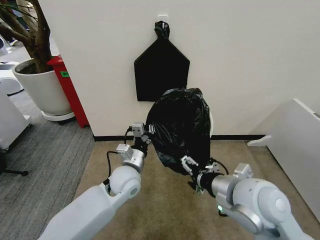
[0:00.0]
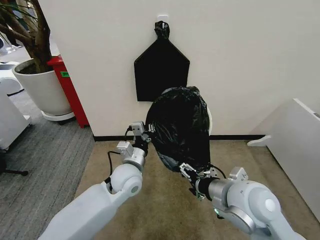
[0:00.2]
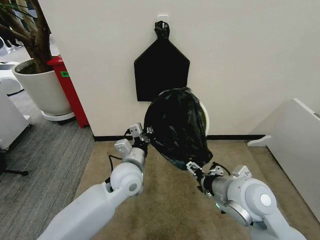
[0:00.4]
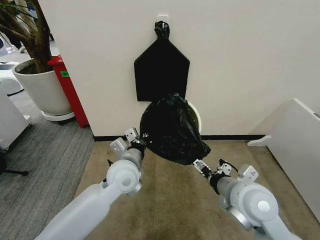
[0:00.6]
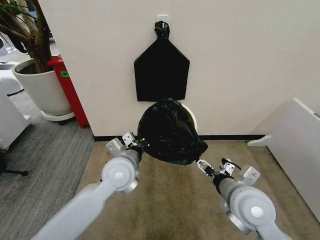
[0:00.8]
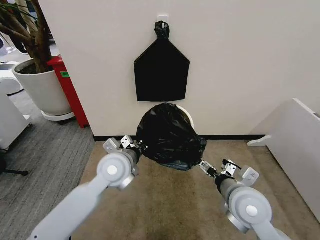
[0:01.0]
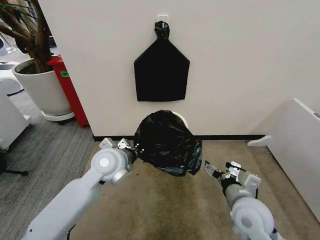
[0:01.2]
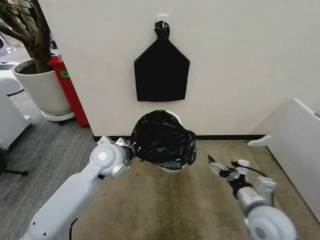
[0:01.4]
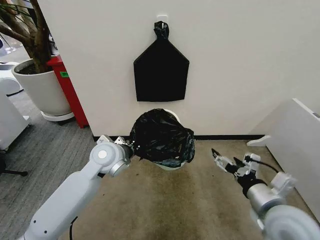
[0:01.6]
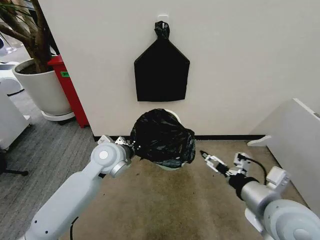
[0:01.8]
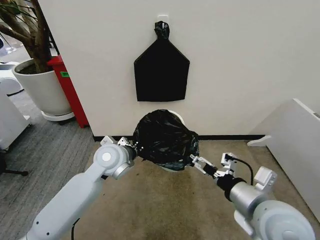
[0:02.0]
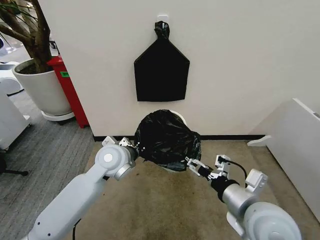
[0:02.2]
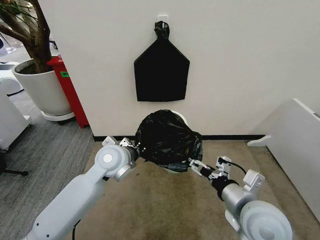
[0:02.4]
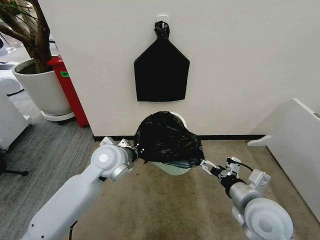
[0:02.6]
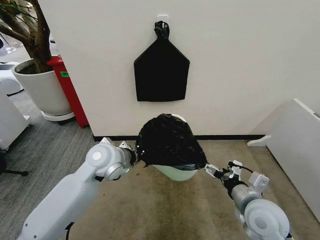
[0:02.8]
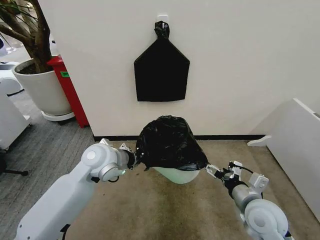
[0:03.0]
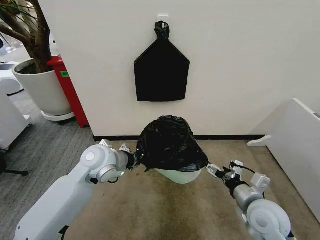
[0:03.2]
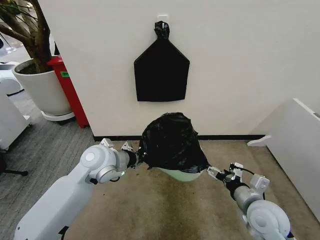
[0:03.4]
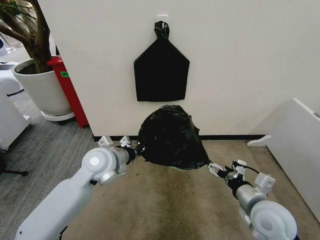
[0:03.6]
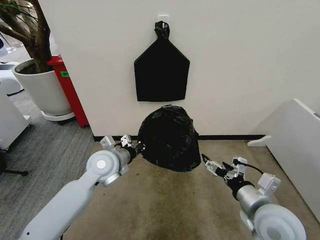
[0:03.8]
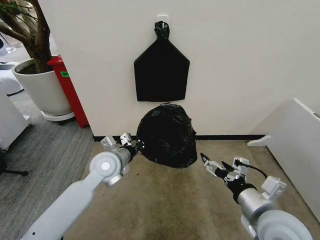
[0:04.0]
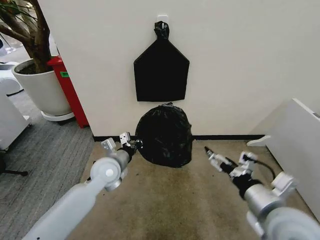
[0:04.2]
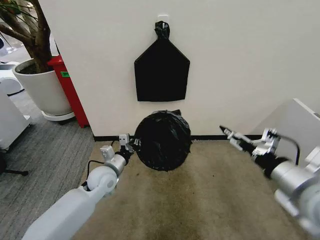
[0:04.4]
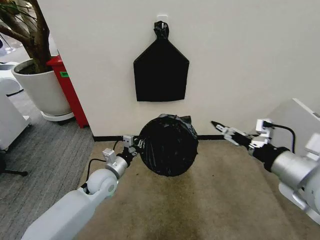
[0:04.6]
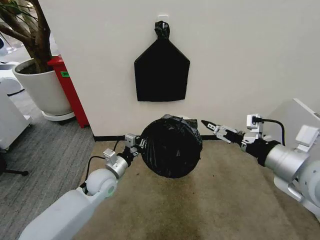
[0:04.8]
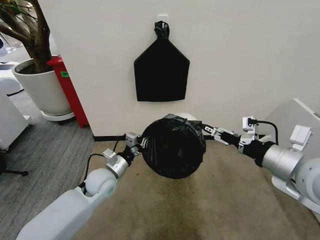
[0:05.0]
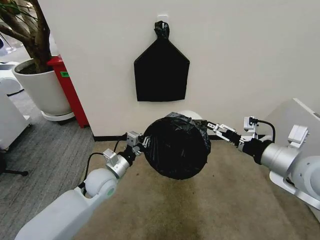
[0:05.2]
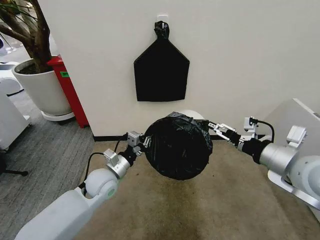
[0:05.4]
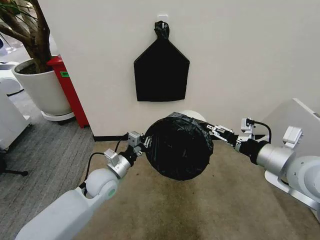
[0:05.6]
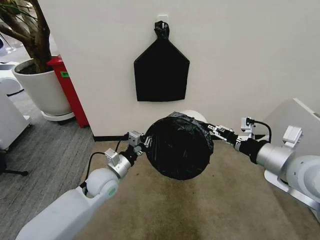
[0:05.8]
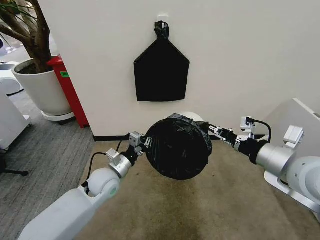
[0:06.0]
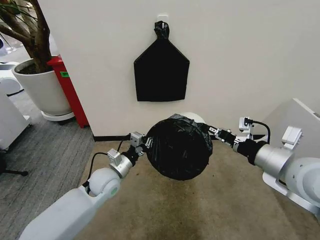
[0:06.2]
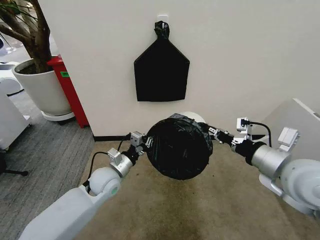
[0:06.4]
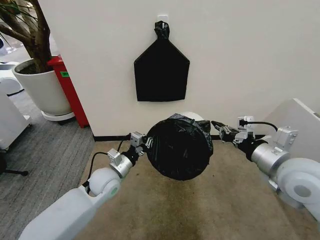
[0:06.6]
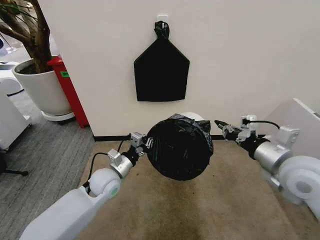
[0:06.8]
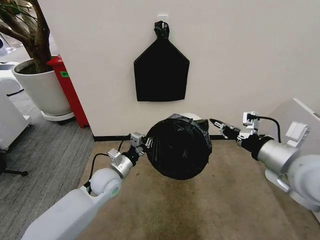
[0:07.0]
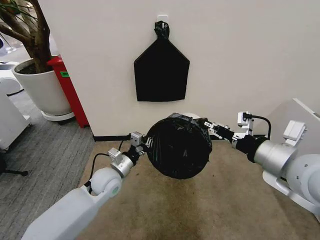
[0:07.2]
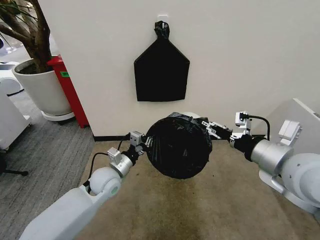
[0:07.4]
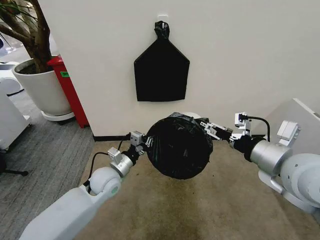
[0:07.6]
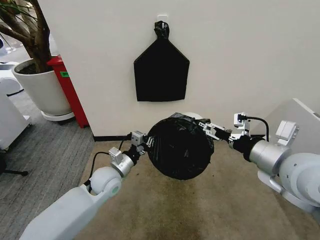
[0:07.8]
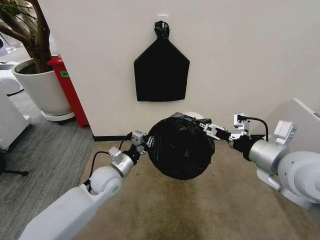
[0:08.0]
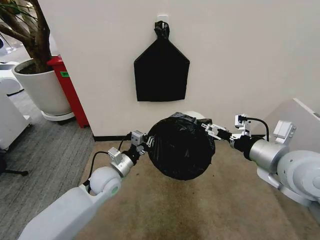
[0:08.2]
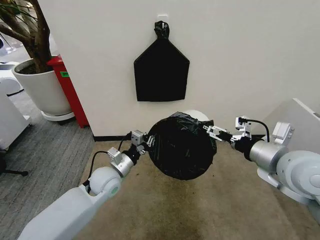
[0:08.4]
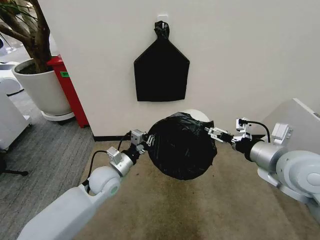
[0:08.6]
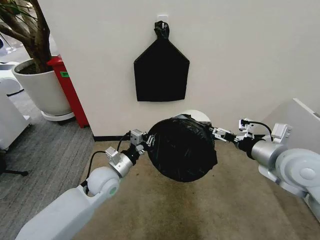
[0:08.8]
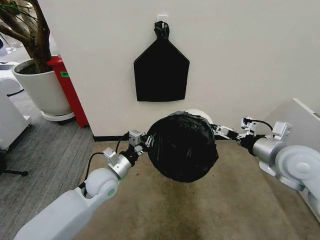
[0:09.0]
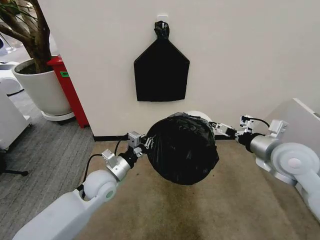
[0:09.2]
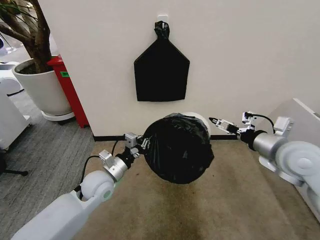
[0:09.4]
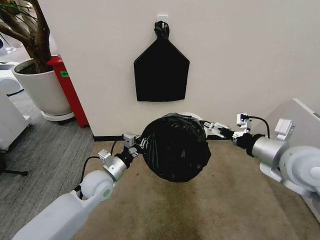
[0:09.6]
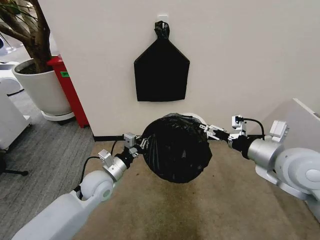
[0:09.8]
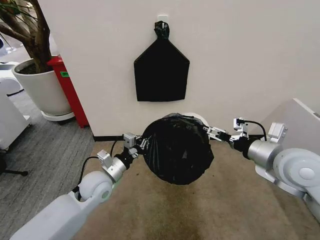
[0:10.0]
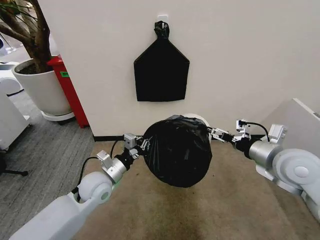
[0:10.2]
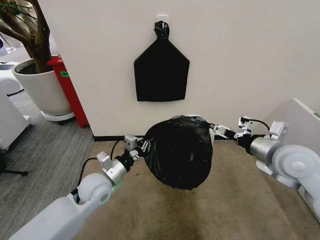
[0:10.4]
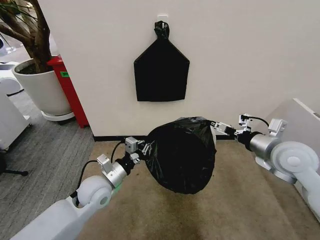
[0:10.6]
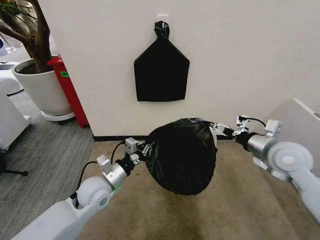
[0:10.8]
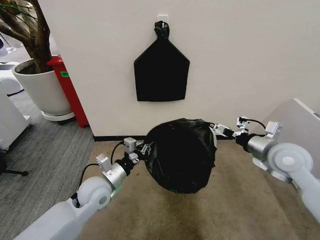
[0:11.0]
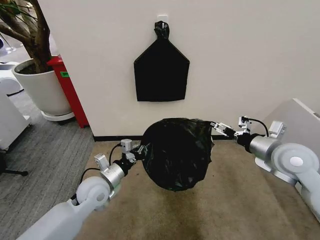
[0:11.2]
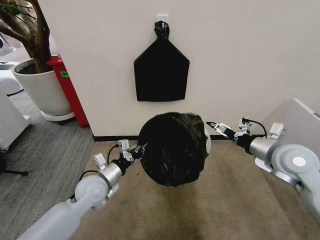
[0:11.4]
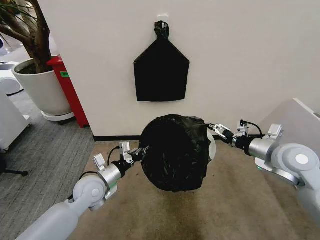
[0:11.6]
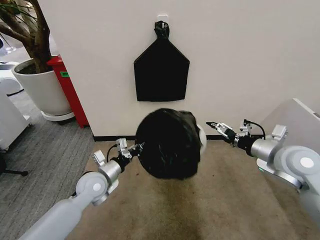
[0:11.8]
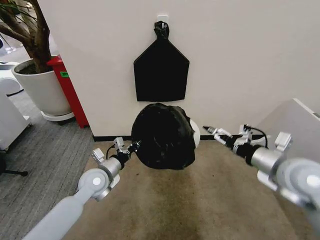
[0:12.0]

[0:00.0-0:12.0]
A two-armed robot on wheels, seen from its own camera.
Task of the whole recording: Place the garbage bag over the trash bin.
0:00.0 to 0:01.6: The right gripper is displaced to the right by some 5 cm; the left gripper moves upward and to the left, approximately 10 cm.
0:01.6 to 0:03.0: The right gripper moves downward, about 10 cm.
0:03.0 to 0:04.4: The right gripper shifts approximately 15 cm upward. Meanwhile the left gripper travels downward by about 15 cm.
0:04.4 to 0:06.0: The right gripper travels forward by about 5 cm, and closes its fingers.
0:06.0 to 0:07.6: The right gripper opens up.
0:07.6 to 0:09.0: The right gripper travels forward, to the right and downward by some 10 cm, and opens.
0:09.0 to 0:10.4: There are only small adjustments of the grippers.

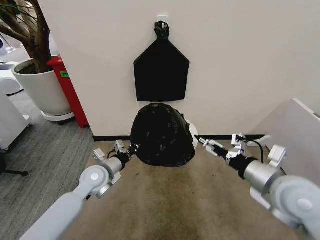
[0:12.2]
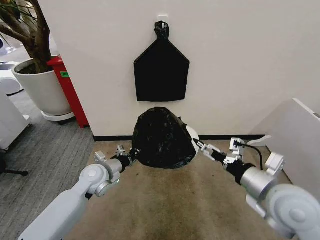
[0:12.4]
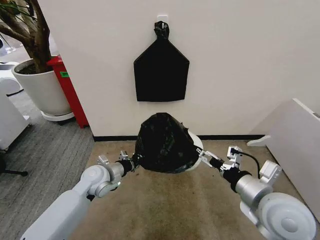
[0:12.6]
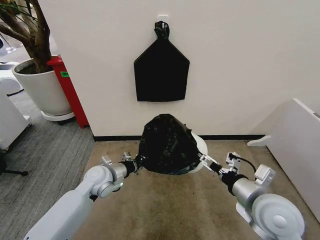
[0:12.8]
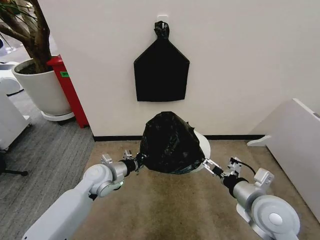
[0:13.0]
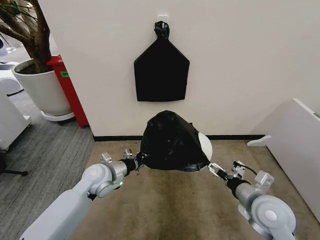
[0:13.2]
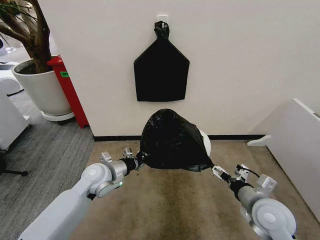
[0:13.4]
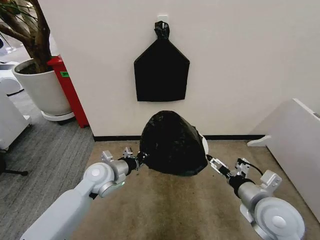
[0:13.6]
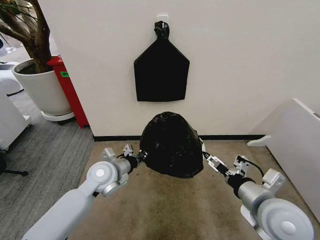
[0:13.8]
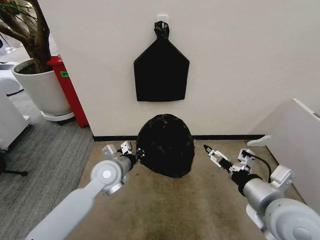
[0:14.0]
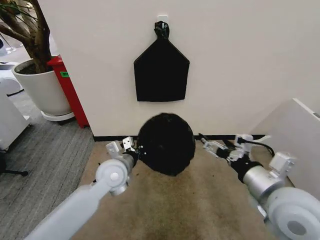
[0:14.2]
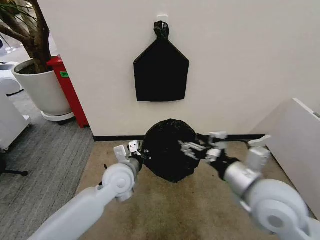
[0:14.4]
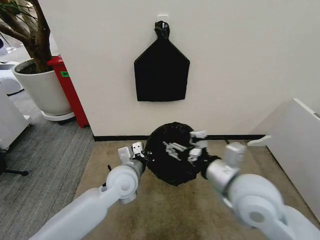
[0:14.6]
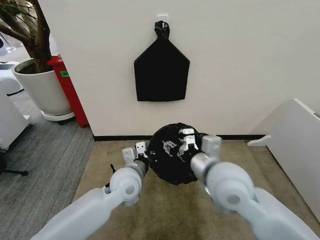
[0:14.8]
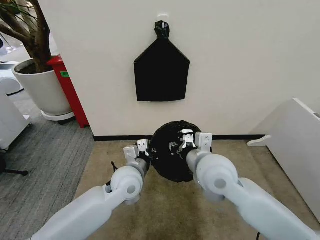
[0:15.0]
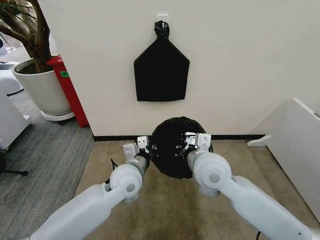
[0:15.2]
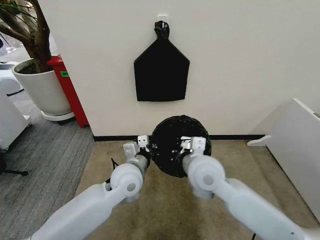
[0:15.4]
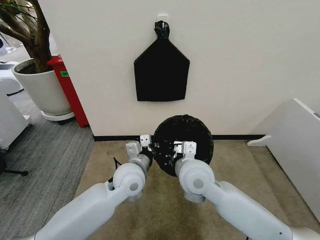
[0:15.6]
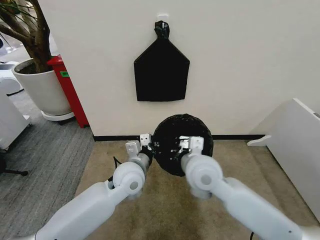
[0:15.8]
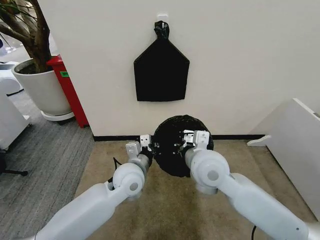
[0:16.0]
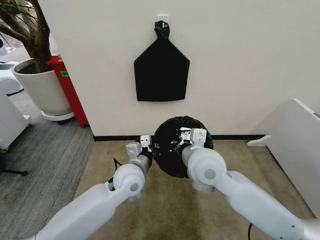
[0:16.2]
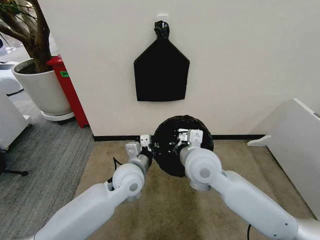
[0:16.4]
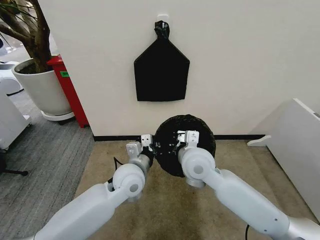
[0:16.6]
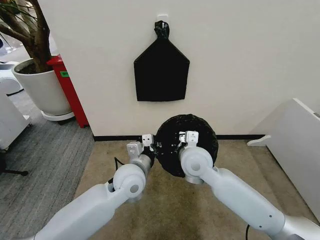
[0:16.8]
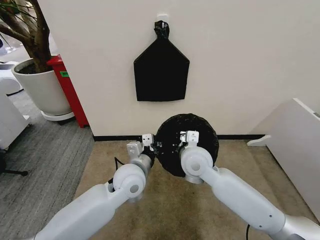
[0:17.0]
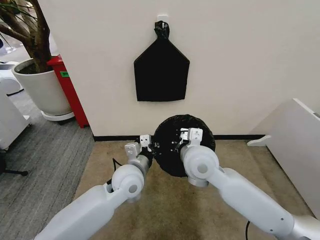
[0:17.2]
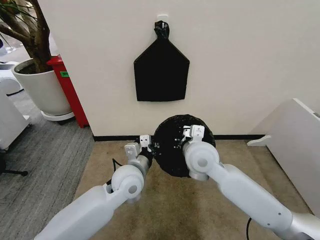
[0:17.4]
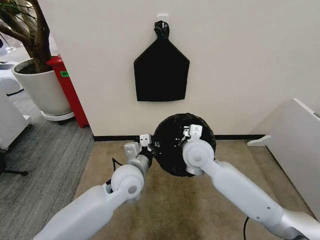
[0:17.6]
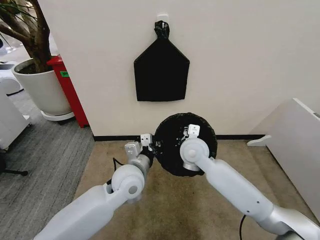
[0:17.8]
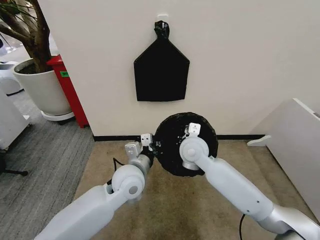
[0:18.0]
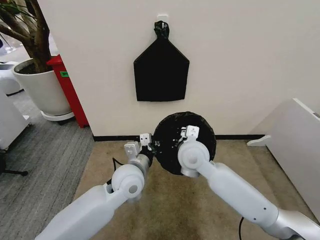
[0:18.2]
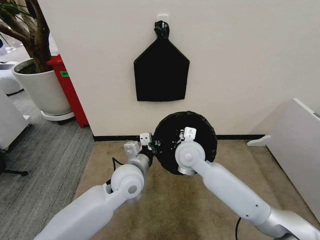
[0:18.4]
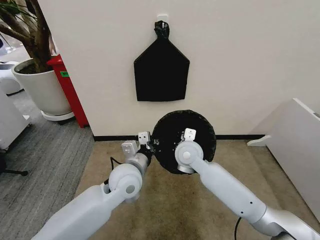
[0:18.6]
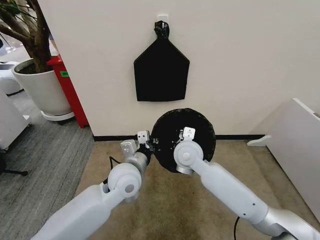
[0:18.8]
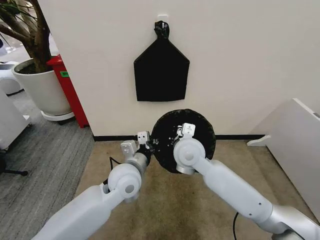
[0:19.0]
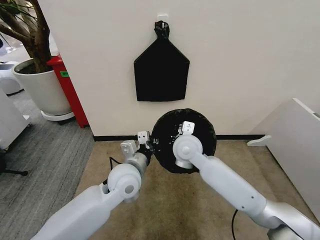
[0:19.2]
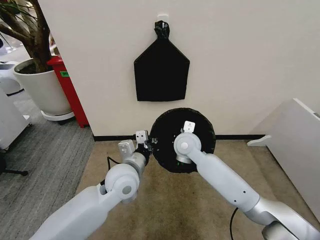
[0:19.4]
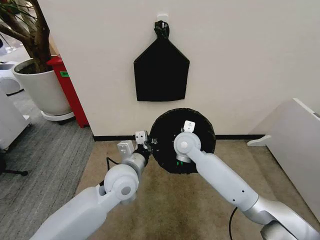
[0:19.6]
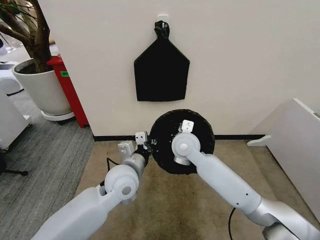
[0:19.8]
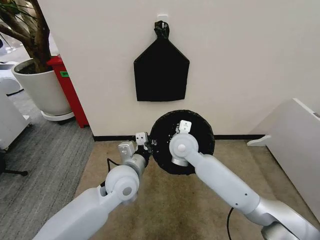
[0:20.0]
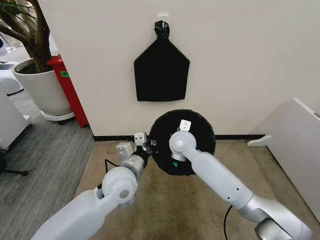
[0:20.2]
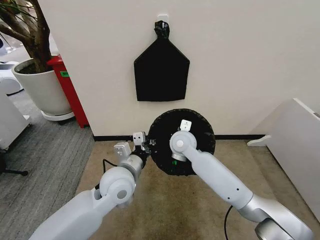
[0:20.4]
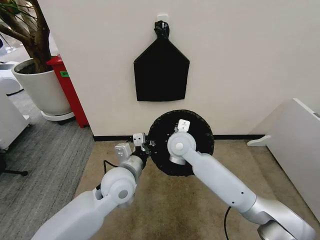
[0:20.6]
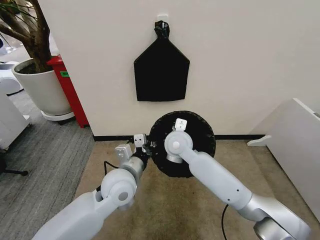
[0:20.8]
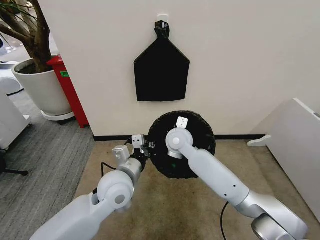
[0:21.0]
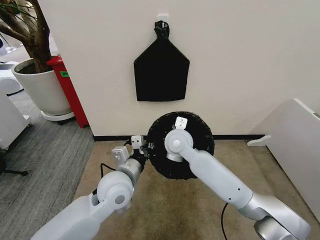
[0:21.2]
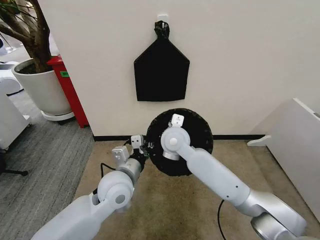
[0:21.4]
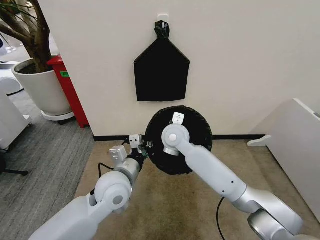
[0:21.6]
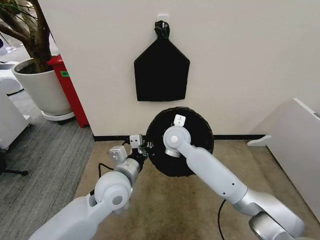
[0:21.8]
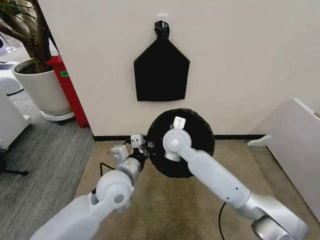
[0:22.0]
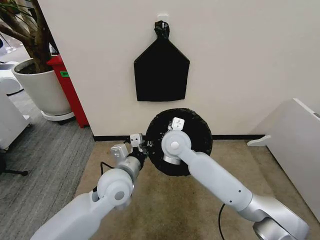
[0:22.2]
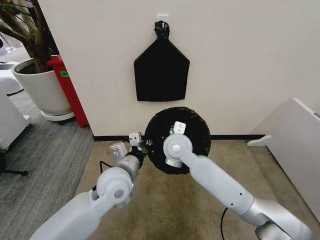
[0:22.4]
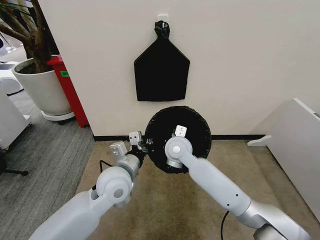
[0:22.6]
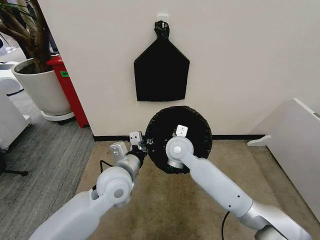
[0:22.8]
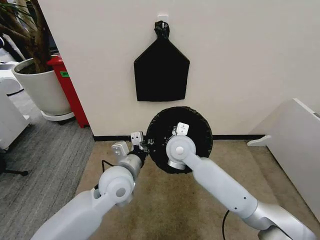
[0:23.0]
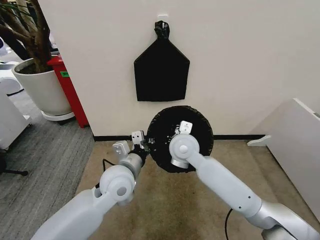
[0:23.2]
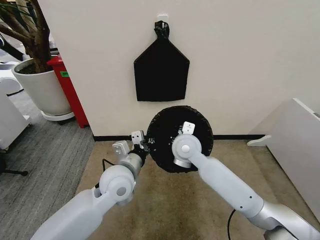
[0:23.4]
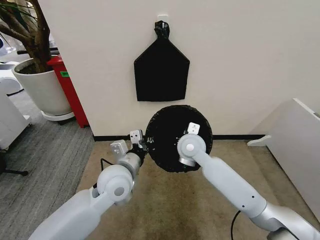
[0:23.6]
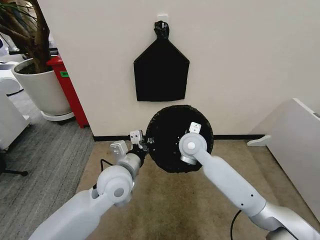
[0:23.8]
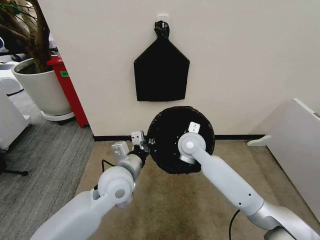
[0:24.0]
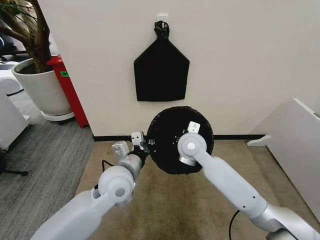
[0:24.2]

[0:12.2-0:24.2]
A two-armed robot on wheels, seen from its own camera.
Task of the whole recording: Place the garbage bag over the trash bin.
0:12.2 to 0:13.8: The right gripper reaches some 10 cm downward, then returns.
0:13.8 to 0:15.2: The right gripper shifts about 20 cm to the left and forward, and closes its fingers; the left gripper moves to the right, roughly 10 cm.
0:15.2 to 0:16.6: The grippers stay close to where they were, moving slightly.
0:19.8 to 0:24.2: The grippers make only small movements.
